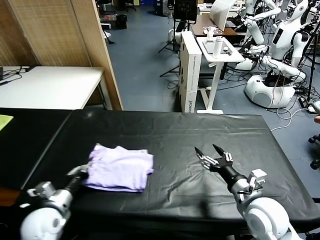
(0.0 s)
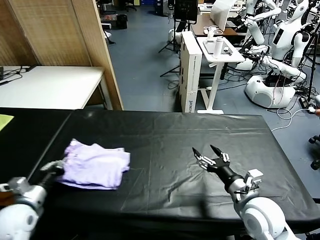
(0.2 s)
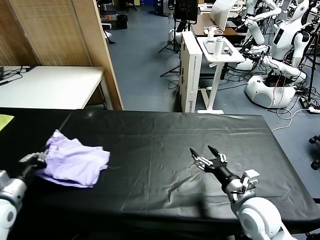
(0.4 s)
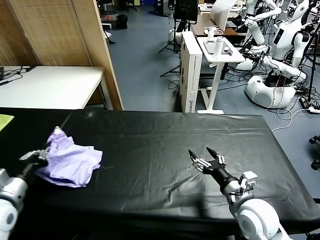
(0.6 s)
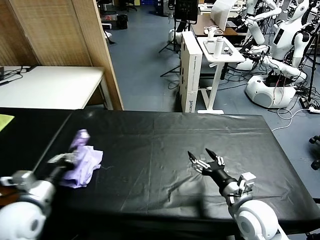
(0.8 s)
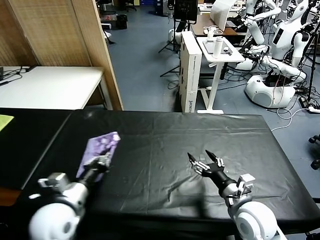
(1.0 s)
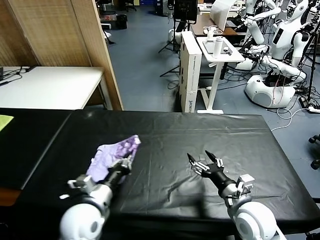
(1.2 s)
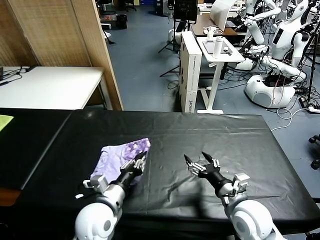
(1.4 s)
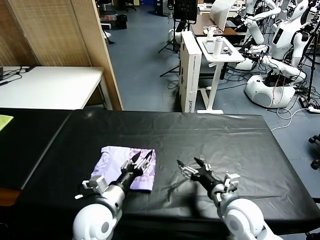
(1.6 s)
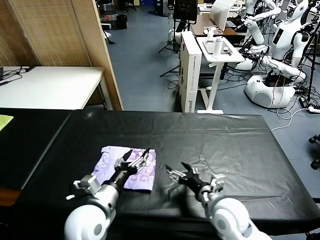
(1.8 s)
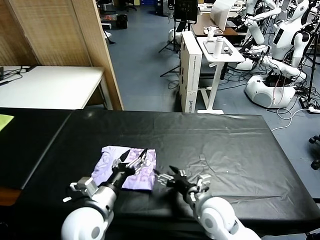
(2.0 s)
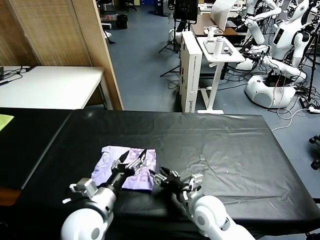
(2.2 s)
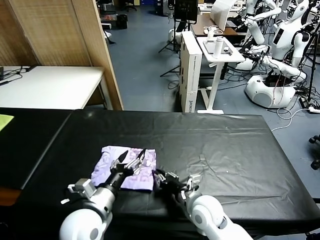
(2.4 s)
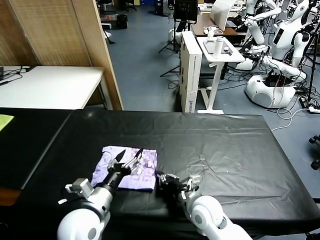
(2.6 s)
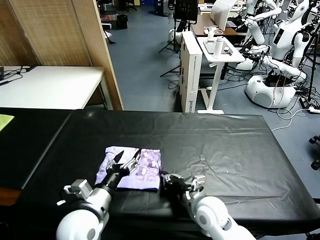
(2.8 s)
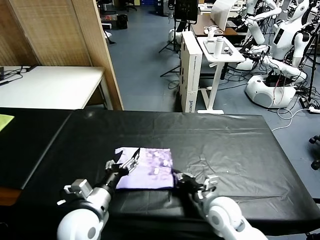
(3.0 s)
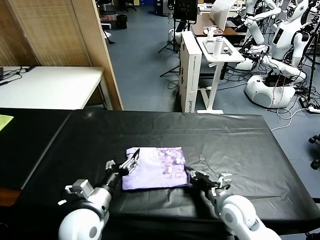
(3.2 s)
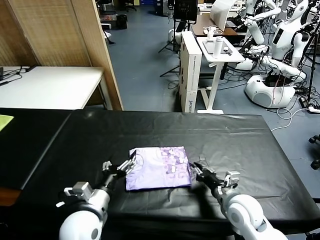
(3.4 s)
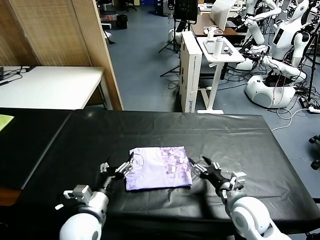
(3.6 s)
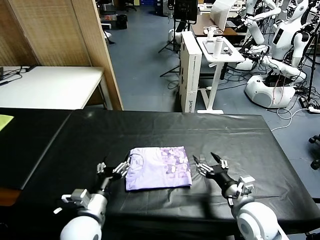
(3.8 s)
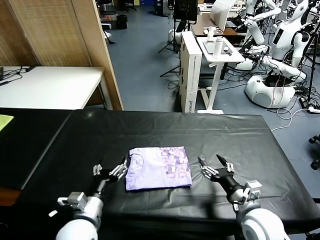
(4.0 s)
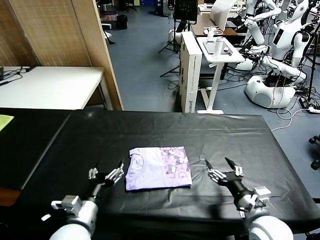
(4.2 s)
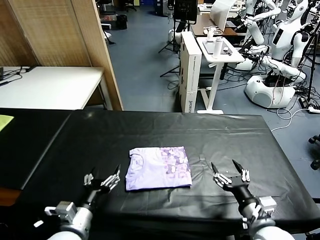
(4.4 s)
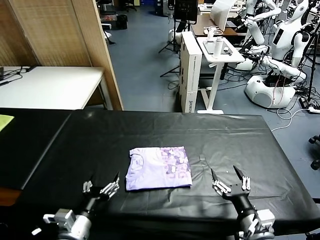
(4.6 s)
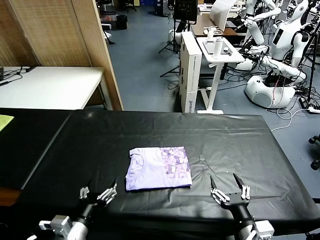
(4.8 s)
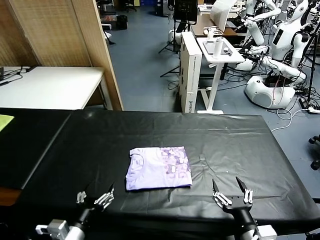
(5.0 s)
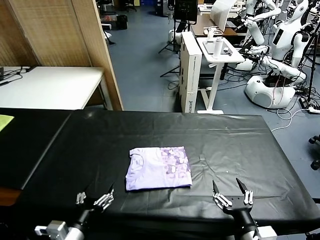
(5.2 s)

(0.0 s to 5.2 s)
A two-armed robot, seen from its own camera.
Task of the whole recording: fold and organize the clothes.
Step, 1.8 s - 3.6 s: Drag the clothes to the center of the table.
0.0 s - 1.8 s: The right gripper goes roughly 5 cm to the left. Meanwhile the left gripper shifts about 15 cm to the right and upward, and opens.
1.8 s - 3.4 s: The right gripper closes its fingers.
3.4 s - 5.2 s: The left gripper is displaced backward and to the left by some 10 cm. Meanwhile the right gripper shifts some 15 cm backward, and opens up.

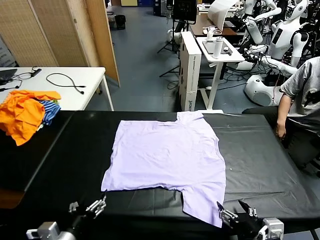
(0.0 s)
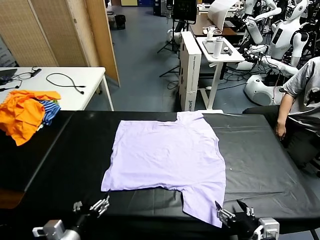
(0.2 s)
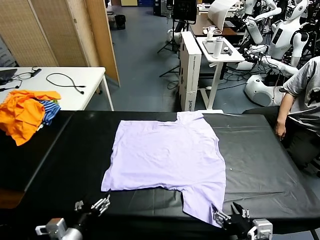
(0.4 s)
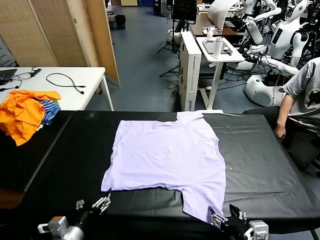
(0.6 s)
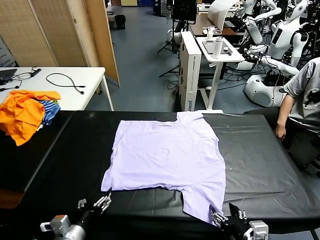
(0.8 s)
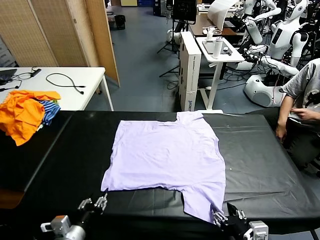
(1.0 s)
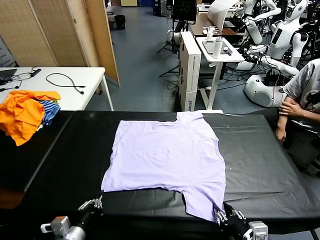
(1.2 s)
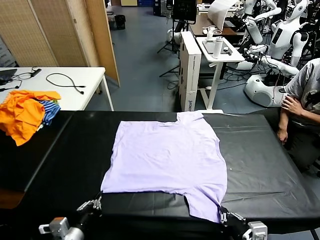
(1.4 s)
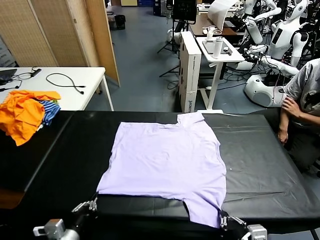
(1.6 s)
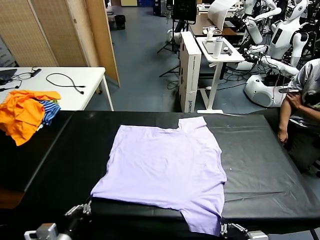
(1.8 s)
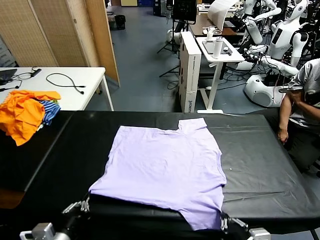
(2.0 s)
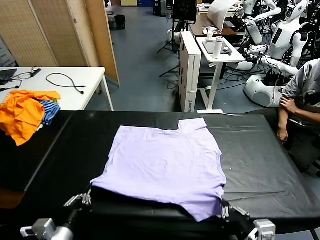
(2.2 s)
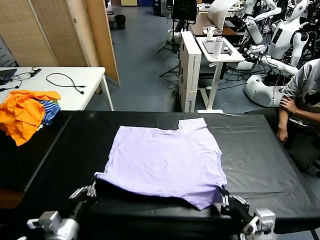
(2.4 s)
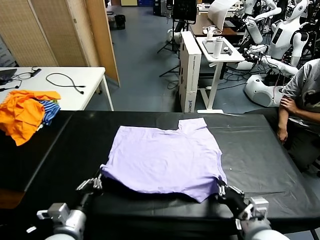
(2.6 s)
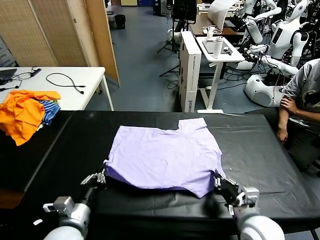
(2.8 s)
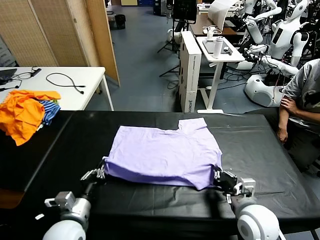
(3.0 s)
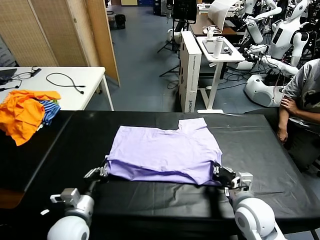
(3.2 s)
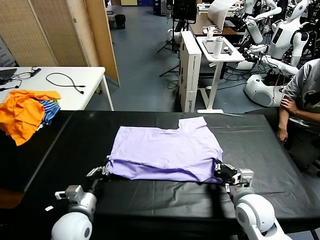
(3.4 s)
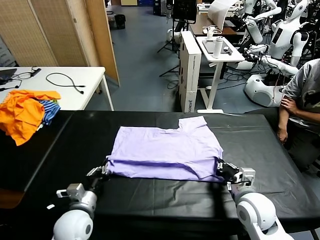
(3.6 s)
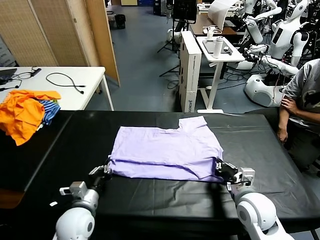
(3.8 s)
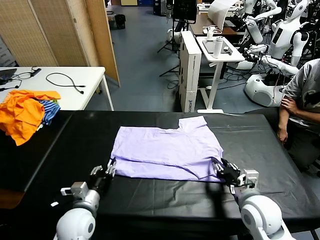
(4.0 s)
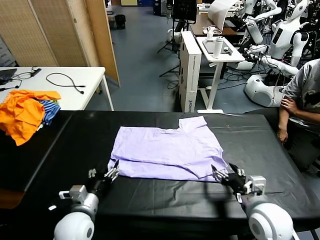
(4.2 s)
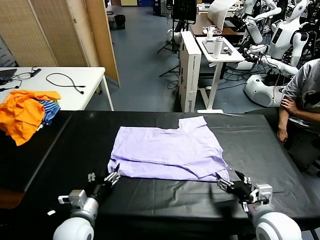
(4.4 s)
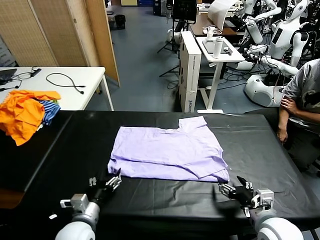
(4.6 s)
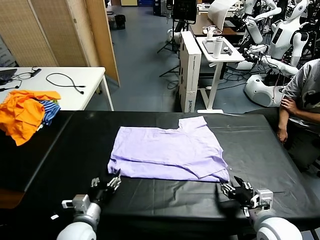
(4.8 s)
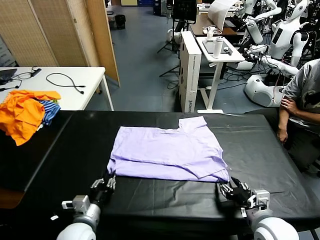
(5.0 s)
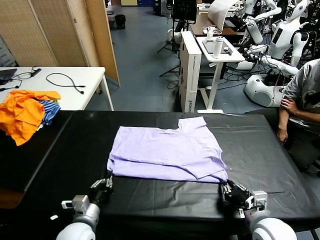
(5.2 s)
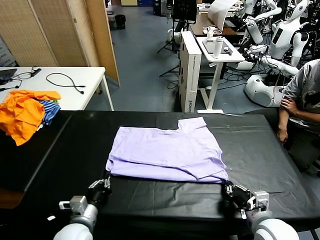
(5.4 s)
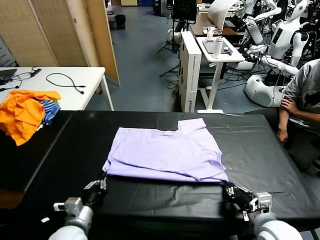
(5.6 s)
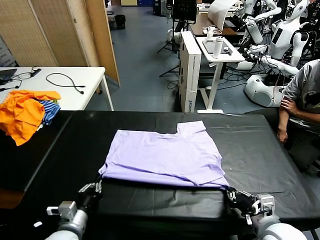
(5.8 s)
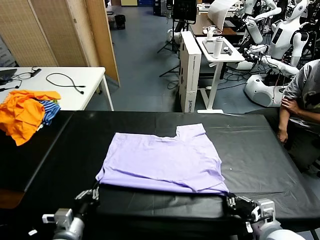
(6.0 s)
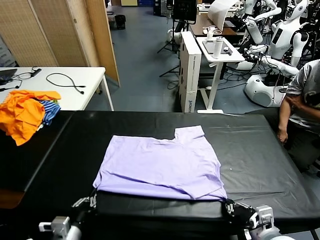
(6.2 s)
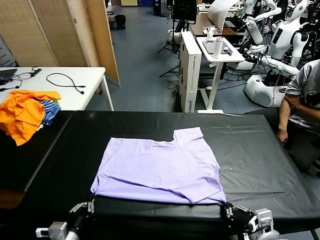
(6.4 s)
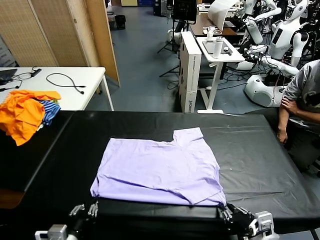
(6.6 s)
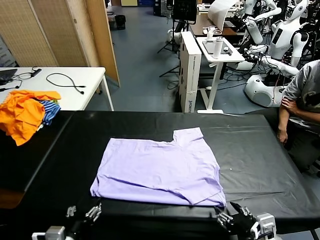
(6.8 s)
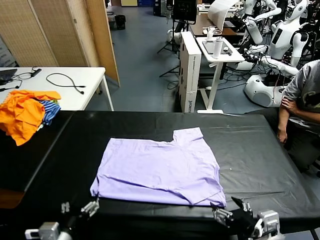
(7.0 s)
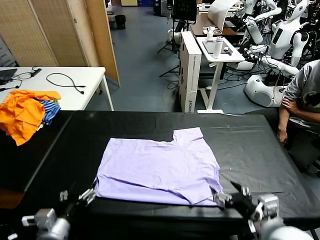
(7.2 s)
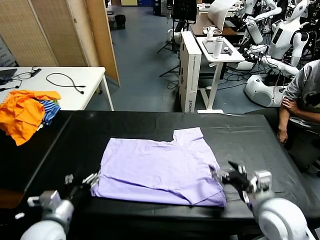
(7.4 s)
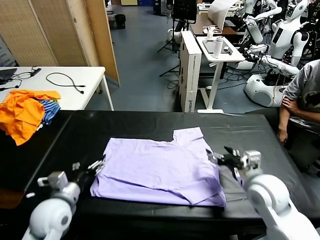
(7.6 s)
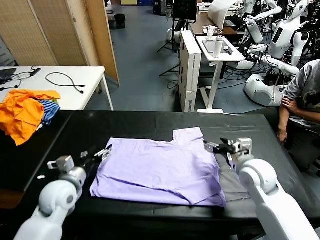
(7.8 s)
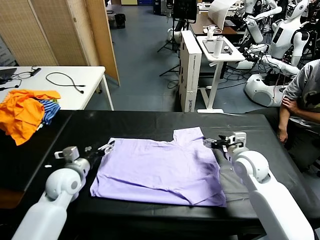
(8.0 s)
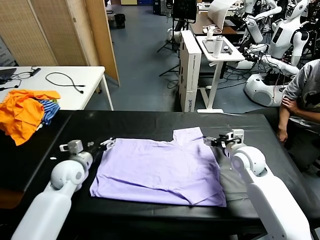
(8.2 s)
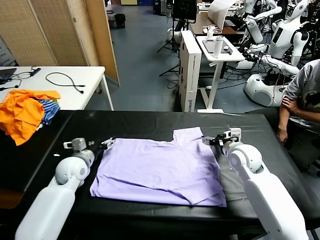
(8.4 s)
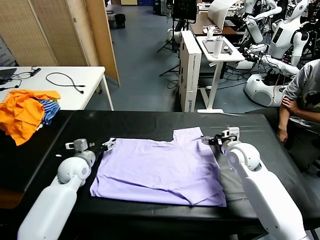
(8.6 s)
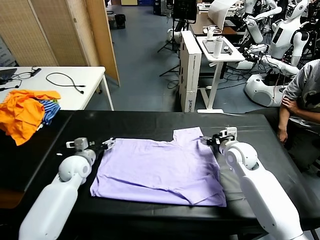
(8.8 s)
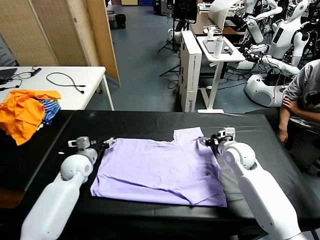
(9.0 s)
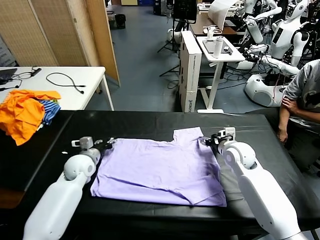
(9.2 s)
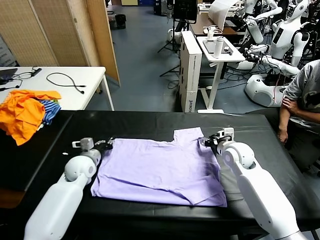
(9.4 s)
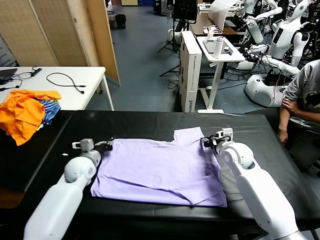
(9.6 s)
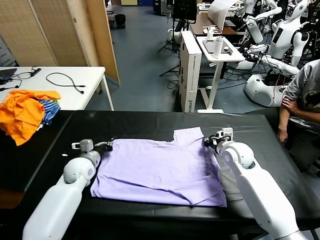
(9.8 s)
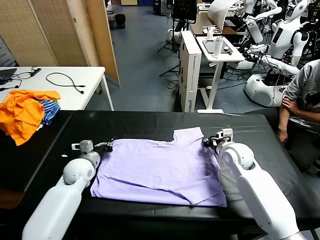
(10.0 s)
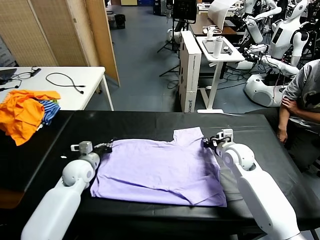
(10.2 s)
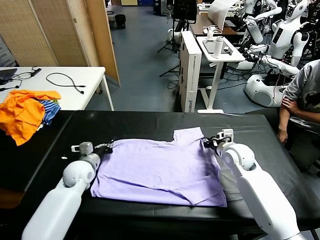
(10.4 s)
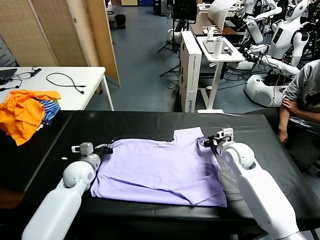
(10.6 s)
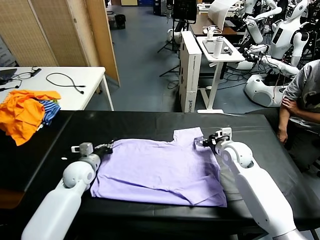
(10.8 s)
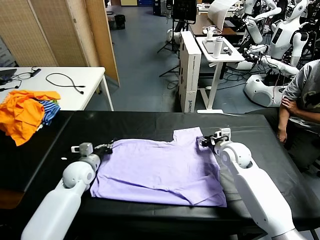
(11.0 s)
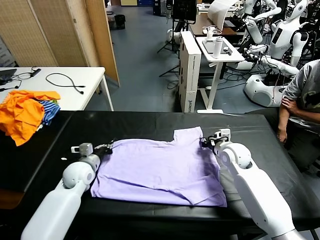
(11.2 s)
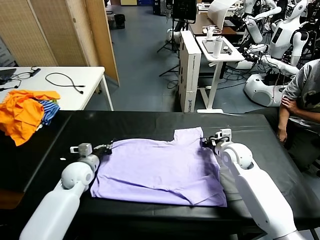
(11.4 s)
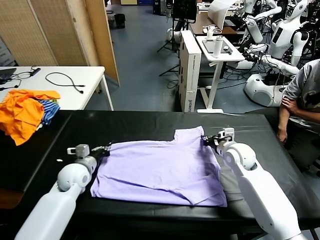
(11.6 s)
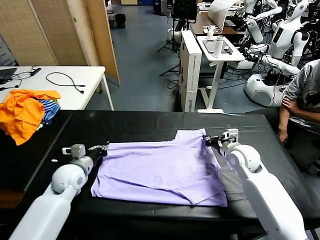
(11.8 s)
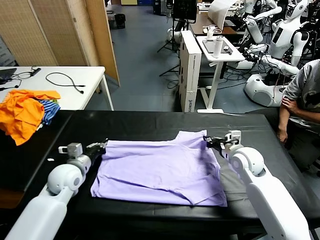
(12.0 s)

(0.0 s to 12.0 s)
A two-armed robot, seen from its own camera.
Task of the whole recording: fold and organize the clothes.
Step, 0.0 s - 1.4 s: use both grippers simultaneously to clamp the lower edge of the clothing fabric.
Step, 1.6 s - 4.2 s: use both grippers to drag the lower edge of the fabric forward and fold it over the upper edge.
Step, 4.4 s - 6.8 s: Drag the clothes downward with both gripper.
Step, 7.0 s - 11.4 s: use both grippers simultaneously to clamp the upper edge of the clothing fabric.
1.6 s - 3.0 s: The right gripper is displaced forward by roughly 15 cm; the left gripper is displaced forward by roughly 10 cm.
3.0 s - 4.4 s: The right gripper travels backward by about 5 cm, and opens up, while the left gripper opens.
4.4 s - 6.0 s: The right gripper ends up roughly 5 cm from where it was, and closes. Meanwhile the left gripper heads backward, covering about 5 cm, and closes.
6.0 s - 7.6 s: Both grippers travel together forward, some 15 cm. The left gripper opens up. The right gripper opens up.
7.6 s - 9.0 s: The left gripper shifts roughly 15 cm forward. The right gripper moves forward, about 10 cm.
9.0 s - 10.4 s: The left gripper closes. The right gripper closes and opens again.
10.4 s - 12.0 s: The right gripper changes place by roughly 5 cm, and closes. The left gripper travels upward by approximately 5 cm.

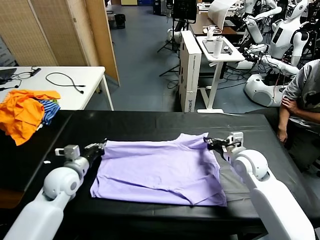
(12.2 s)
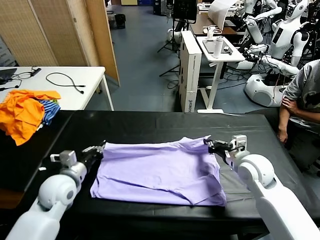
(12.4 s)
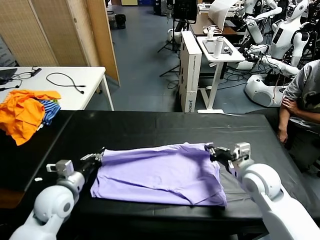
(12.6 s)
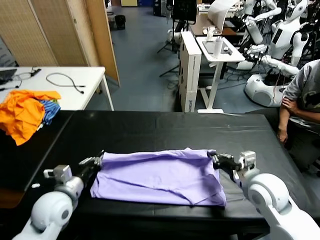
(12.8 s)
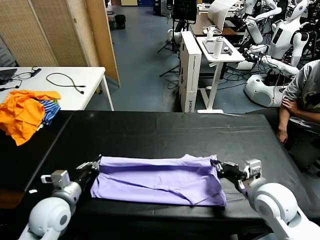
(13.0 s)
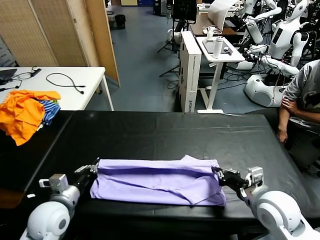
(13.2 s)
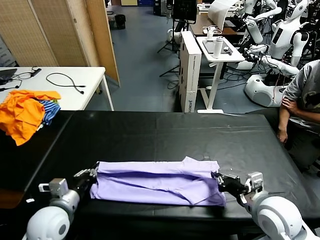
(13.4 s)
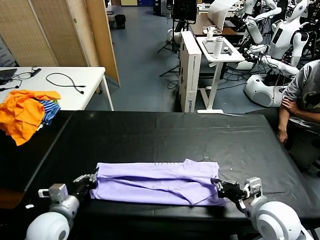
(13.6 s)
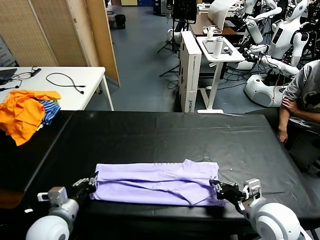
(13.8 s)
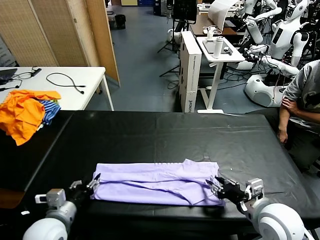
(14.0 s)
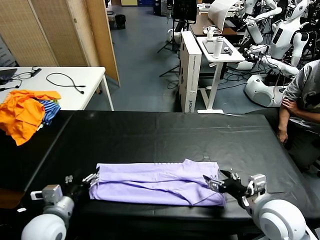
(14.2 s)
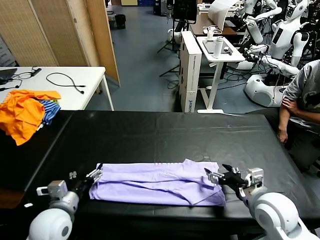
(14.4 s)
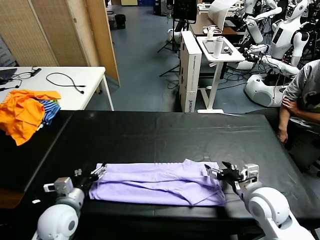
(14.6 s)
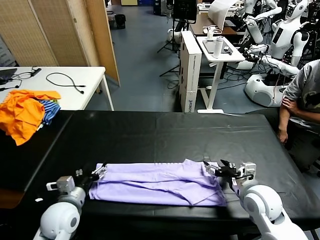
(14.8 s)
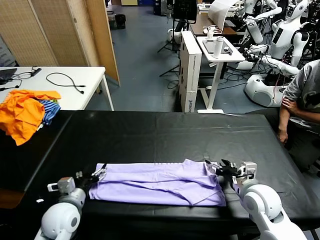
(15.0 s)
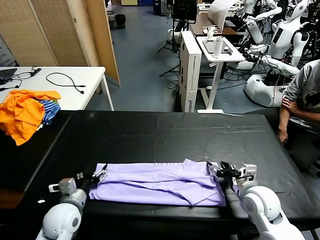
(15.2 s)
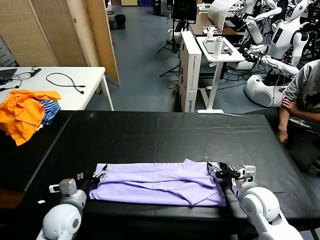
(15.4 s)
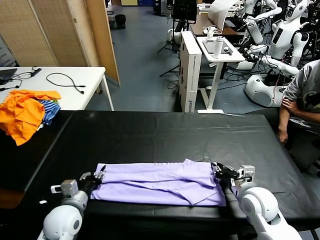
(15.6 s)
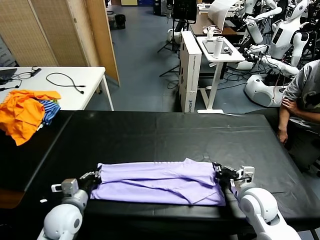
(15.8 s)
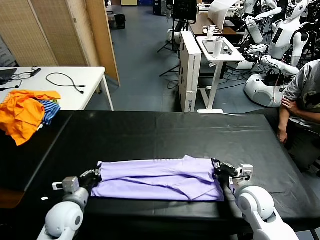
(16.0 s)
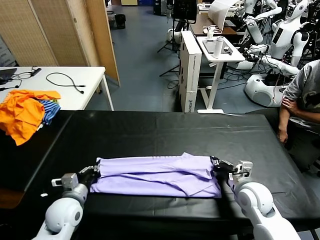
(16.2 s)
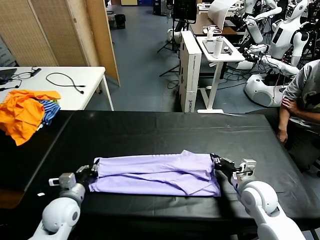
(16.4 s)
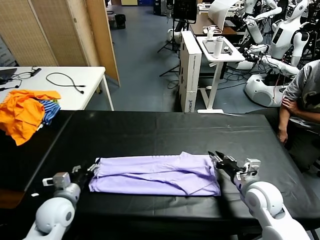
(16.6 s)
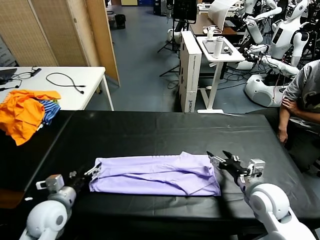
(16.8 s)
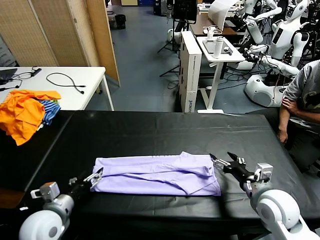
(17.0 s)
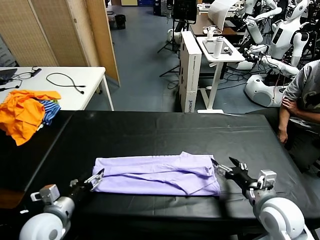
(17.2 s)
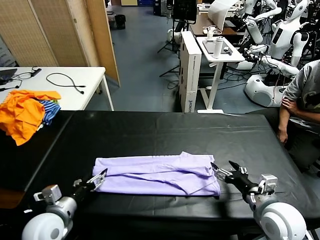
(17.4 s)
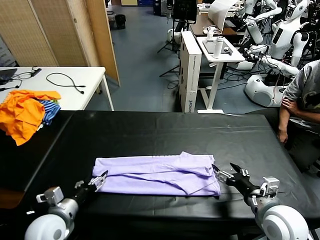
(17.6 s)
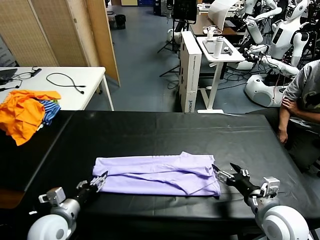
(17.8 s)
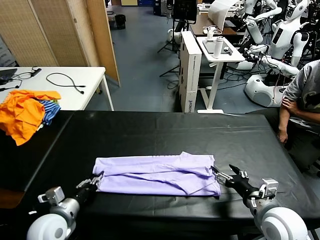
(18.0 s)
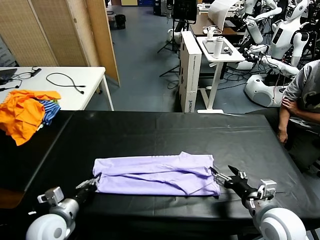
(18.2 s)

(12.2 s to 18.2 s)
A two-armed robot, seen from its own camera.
Task of the whole recording: fold and organize the clothes.
Step, 12.2 s - 16.6 s: use both grippers to drag the upper edge of the fabric backward and fold it over the lower edge.
Step, 16.8 s - 18.2 s: use the left gripper to clamp the left edge of the fabric.
12.2 s - 13.8 s: Both grippers move backward, roughly 15 cm. The left gripper opens. The right gripper opens up.
13.8 s - 15.2 s: The right gripper moves forward and downward, approximately 10 cm. Meanwhile the left gripper ends up some 5 cm from where it was, and opens its fingers.
15.2 s - 16.6 s: The left gripper closes, then opens again; the right gripper closes and opens again.
16.6 s - 18.2 s: The left gripper closes its fingers. Meanwhile the right gripper travels backward by roughly 10 cm.
